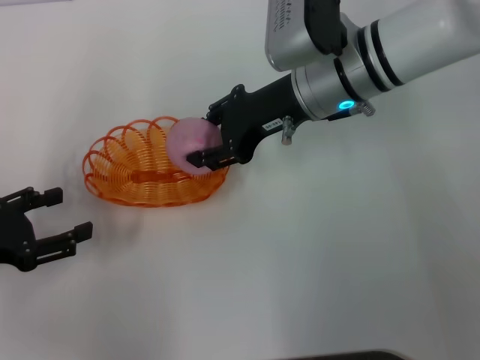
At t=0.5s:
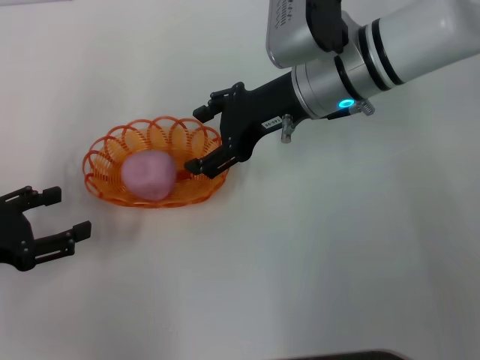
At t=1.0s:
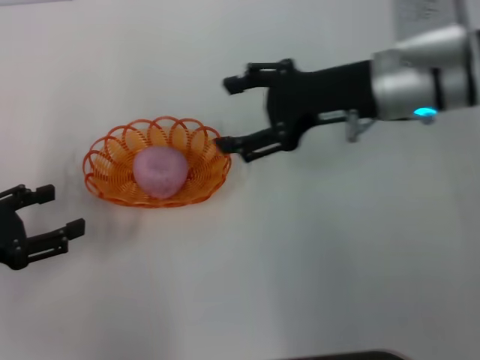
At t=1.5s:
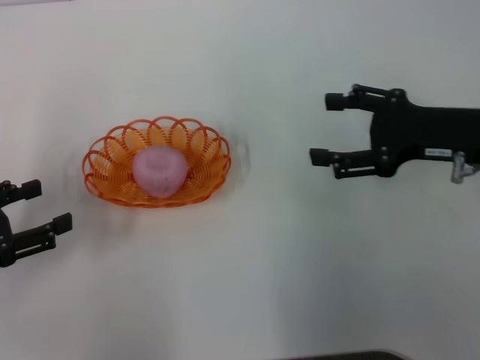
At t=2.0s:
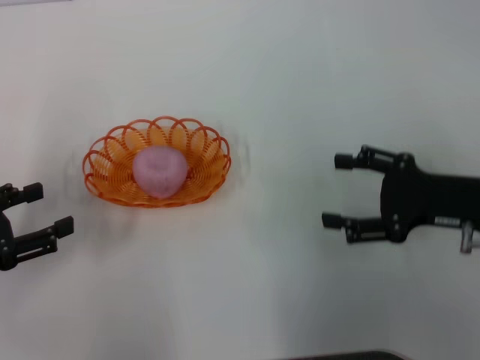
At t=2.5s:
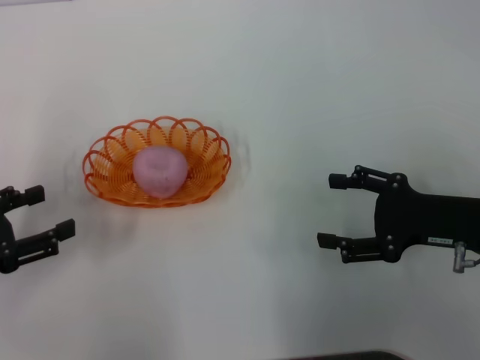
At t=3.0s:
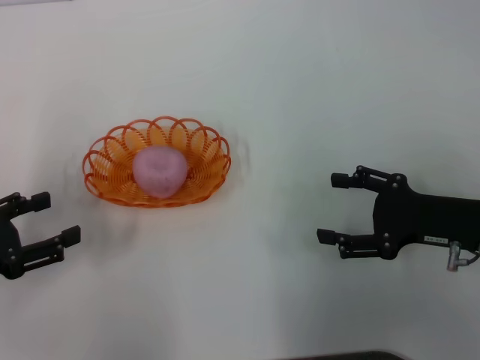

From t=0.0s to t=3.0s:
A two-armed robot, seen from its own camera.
From t=0.0s to t=1.5s: The right gripper heads to the right and backward, covering about 20 cm, and opens up.
From t=1.5s to t=3.0s: The right gripper is displaced downward and backward by some 10 cm.
